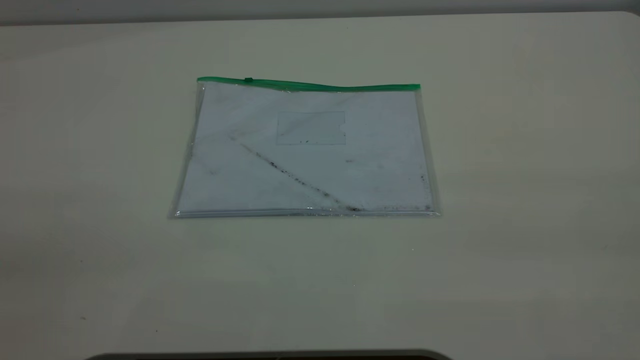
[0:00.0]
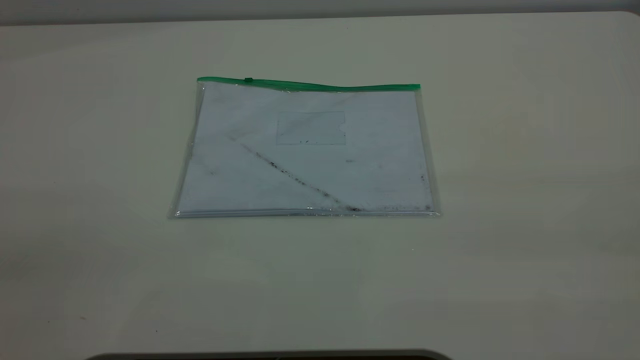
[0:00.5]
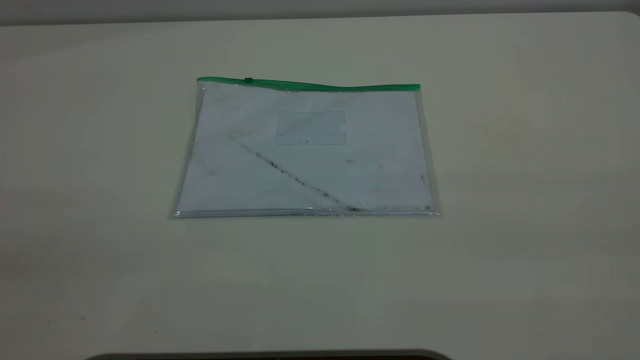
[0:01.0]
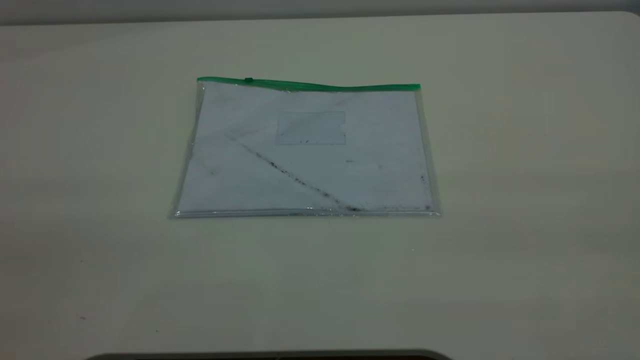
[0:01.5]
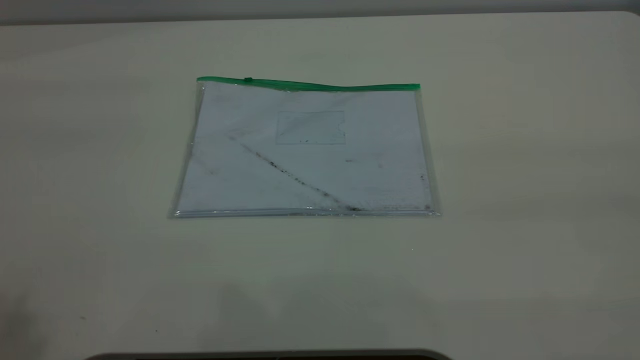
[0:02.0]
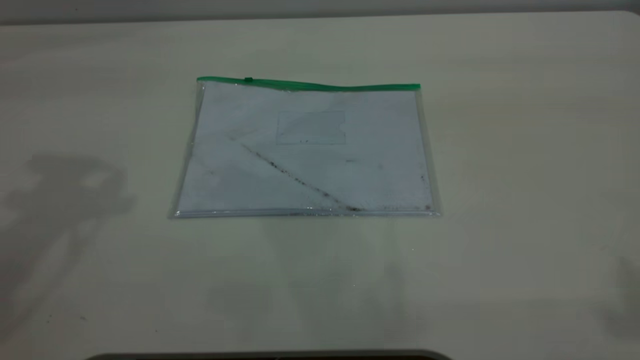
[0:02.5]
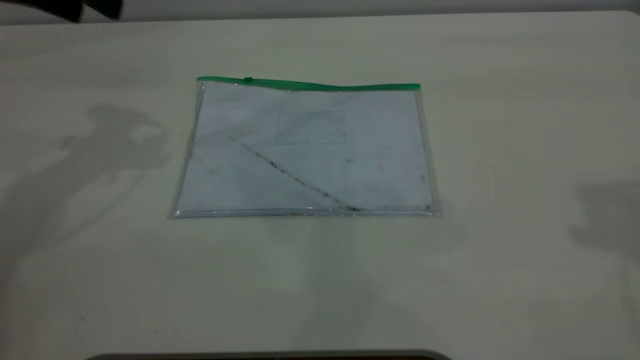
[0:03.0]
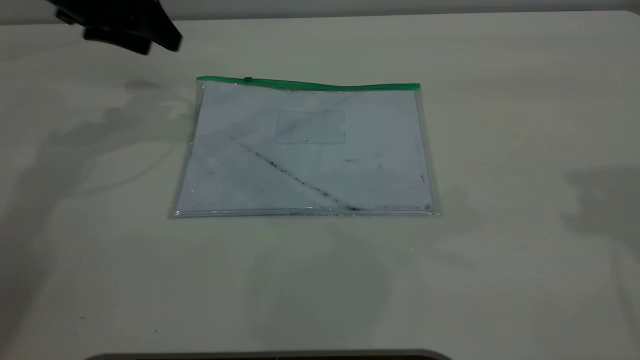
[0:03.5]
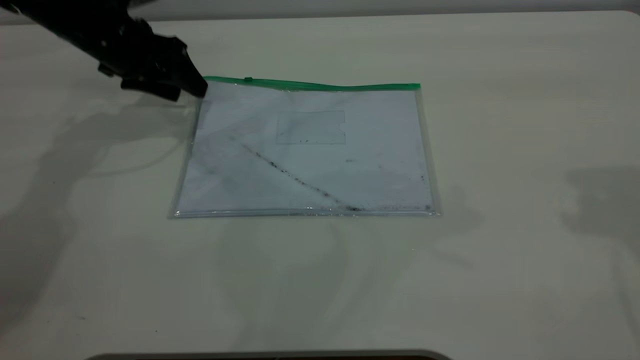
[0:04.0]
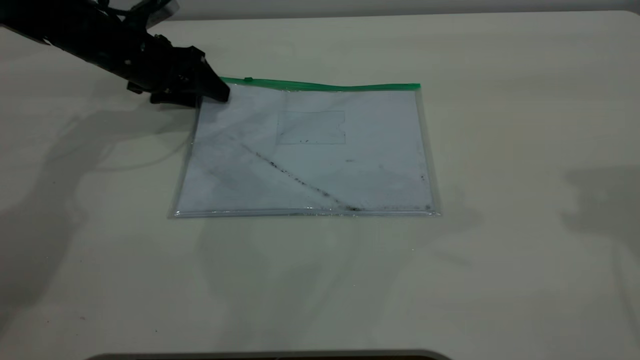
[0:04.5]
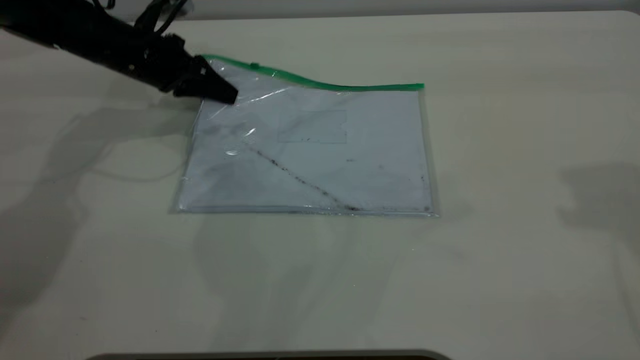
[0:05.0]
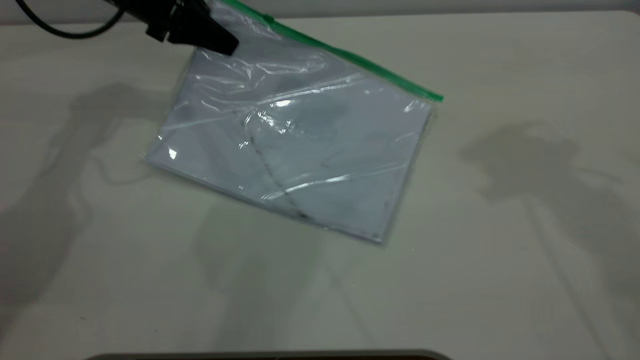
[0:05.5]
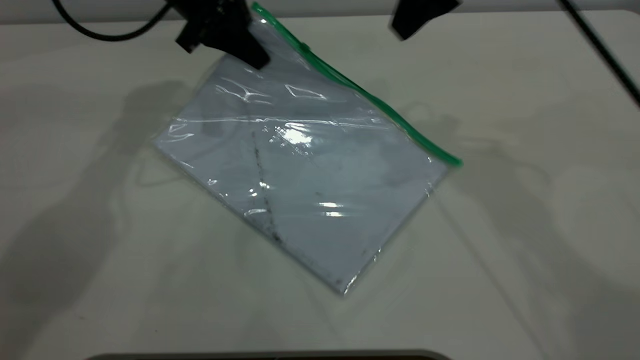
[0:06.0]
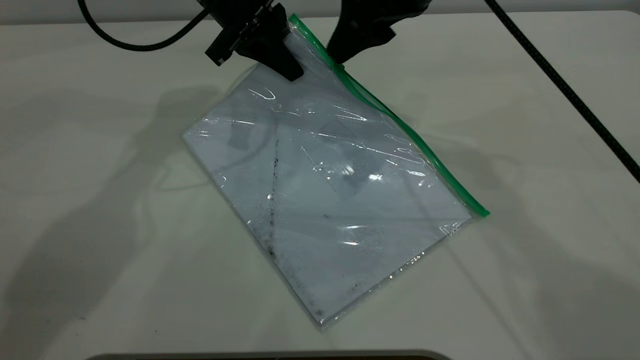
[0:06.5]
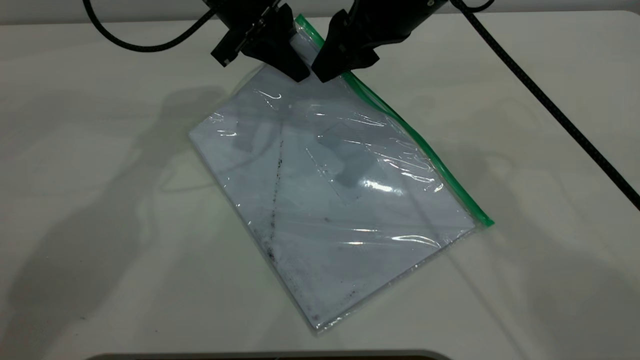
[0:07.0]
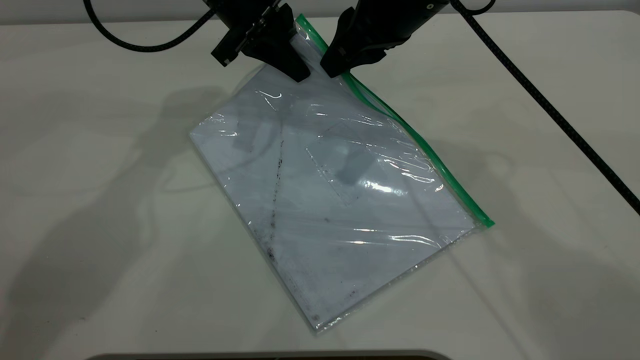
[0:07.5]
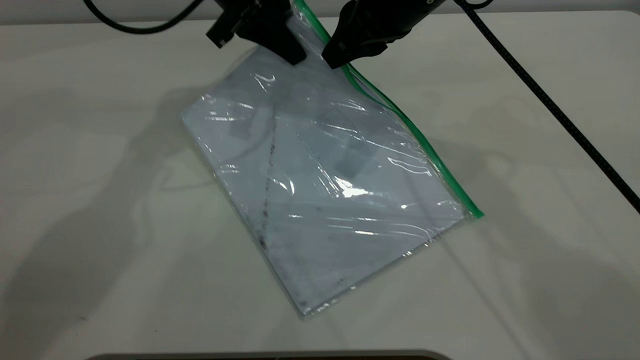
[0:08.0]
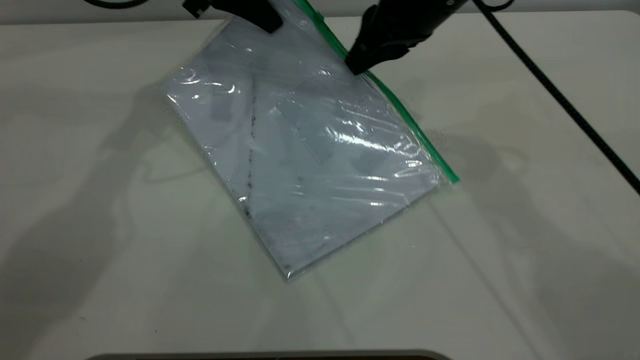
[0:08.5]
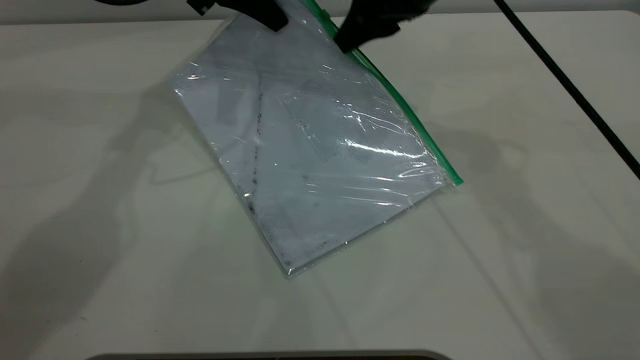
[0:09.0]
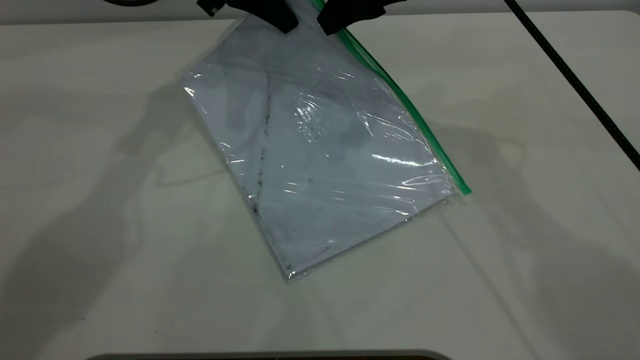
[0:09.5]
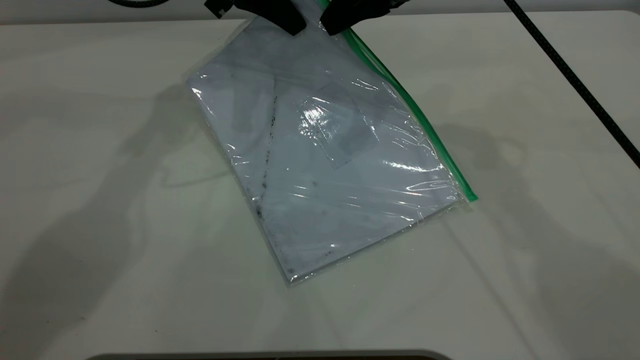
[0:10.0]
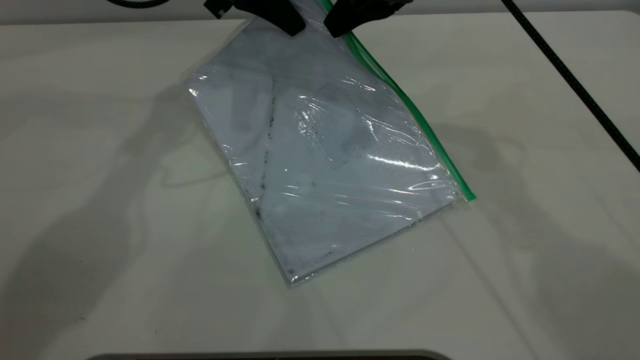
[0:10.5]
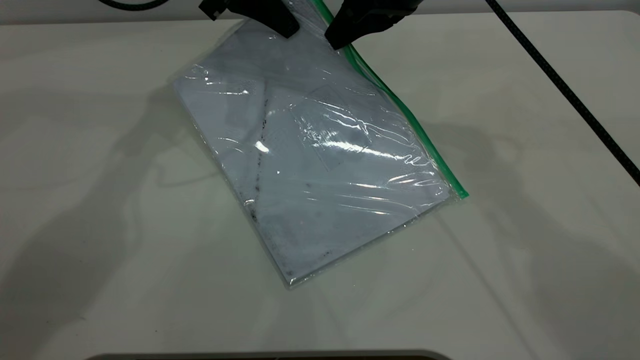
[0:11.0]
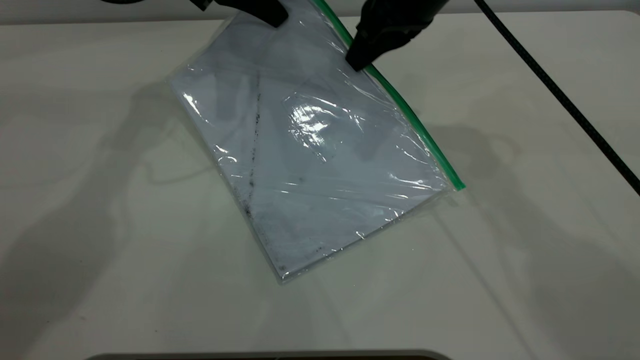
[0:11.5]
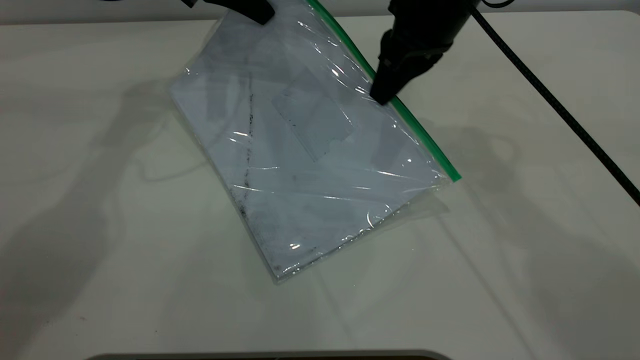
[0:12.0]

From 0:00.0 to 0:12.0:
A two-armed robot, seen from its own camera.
Step, from 0:00.0 to 0:05.0: Pick up the transparent plastic bag with the left gripper.
From 0:02.0 to 0:04.0: The left gripper goes approximately 40 cm forward and downward.
From 0:04.0 to 0:06.0: The left gripper heads to the right and upward, covering roughly 10 cm, and closes up, while the right gripper moves to the left, forward and downward, about 25 cm.
From 0:06.0 to 0:08.0: The right gripper moves downward, roughly 5 cm, and closes up.
From 0:08.0 to 0:10.0: The right gripper opens and closes again.
From 0:10.0 to 0:12.0: The left gripper moves roughly 5 cm.

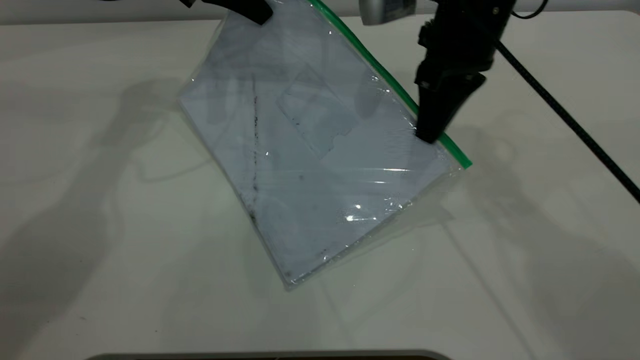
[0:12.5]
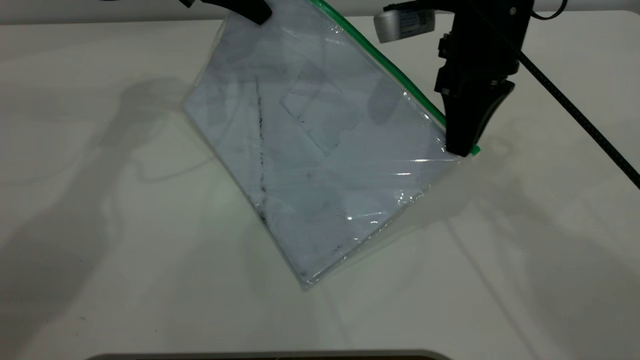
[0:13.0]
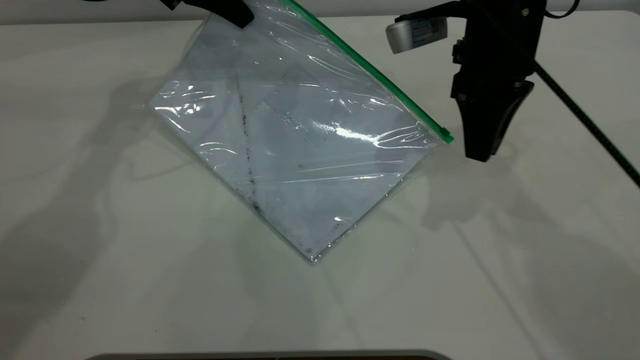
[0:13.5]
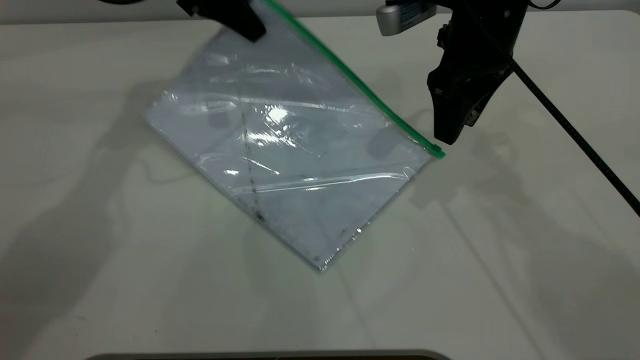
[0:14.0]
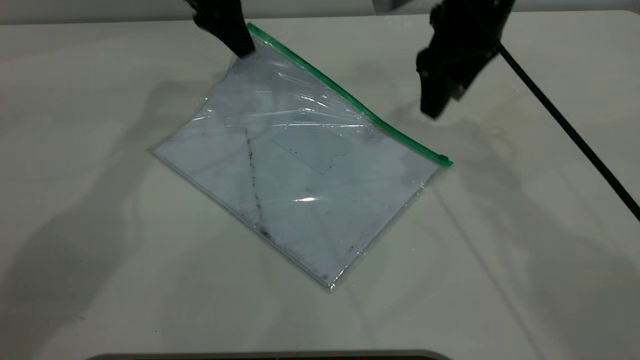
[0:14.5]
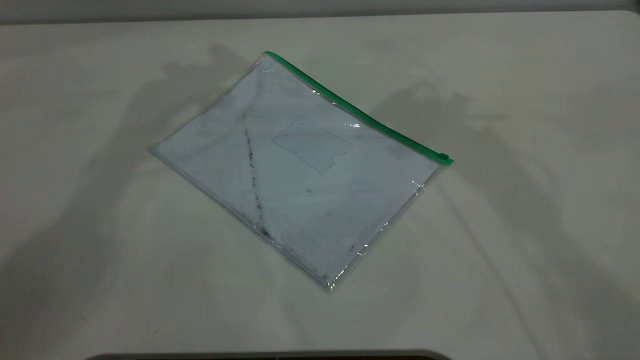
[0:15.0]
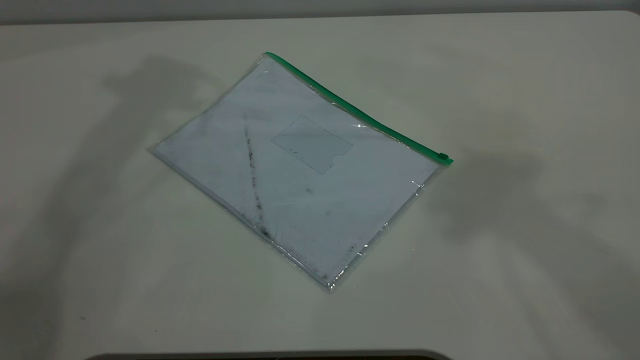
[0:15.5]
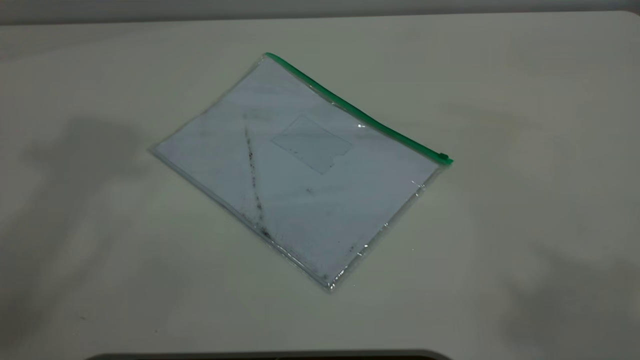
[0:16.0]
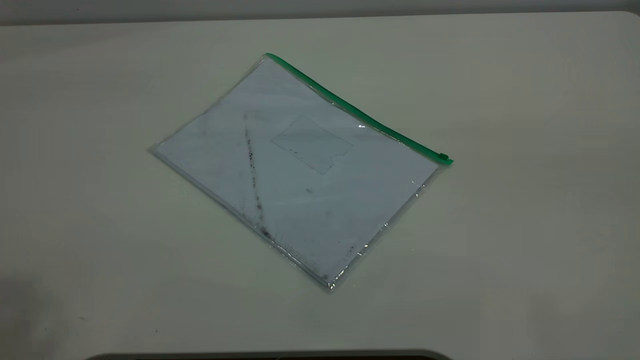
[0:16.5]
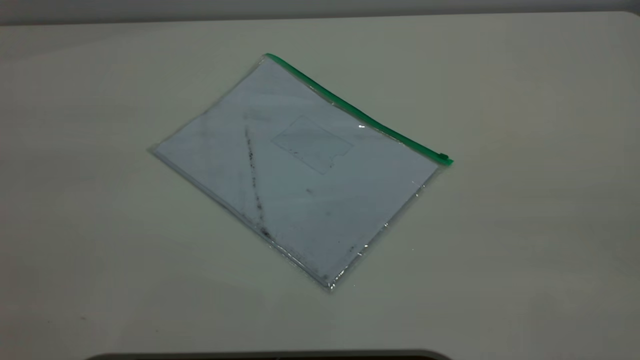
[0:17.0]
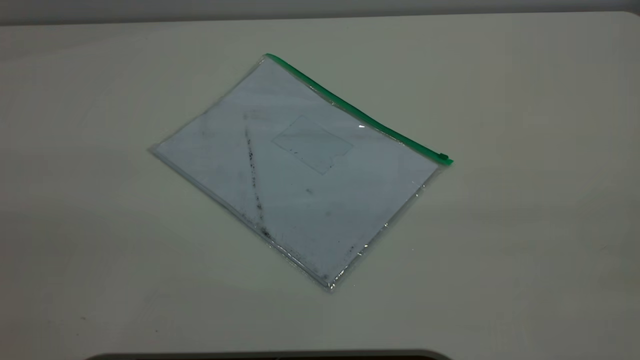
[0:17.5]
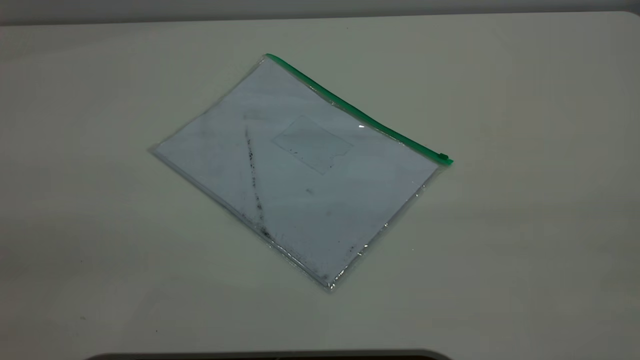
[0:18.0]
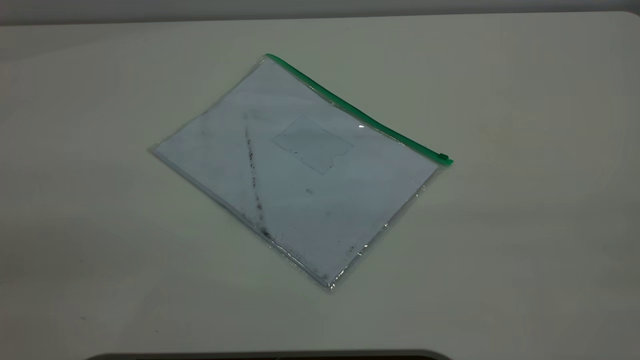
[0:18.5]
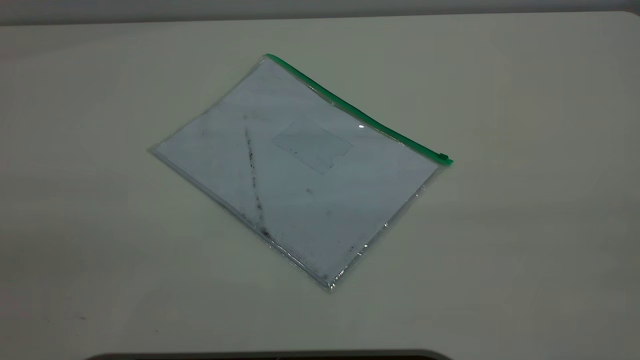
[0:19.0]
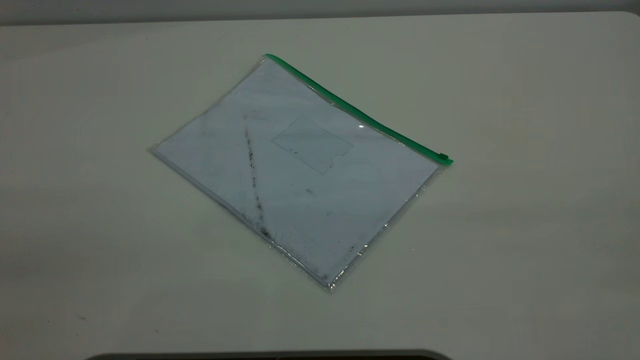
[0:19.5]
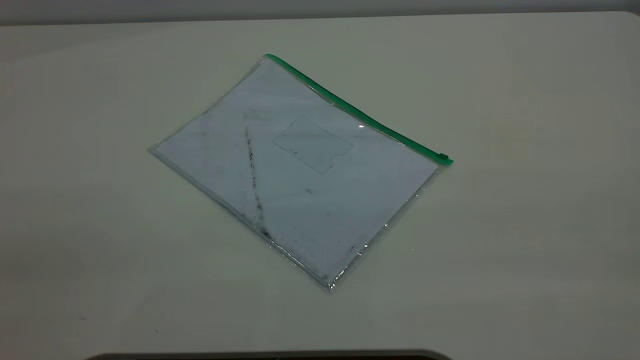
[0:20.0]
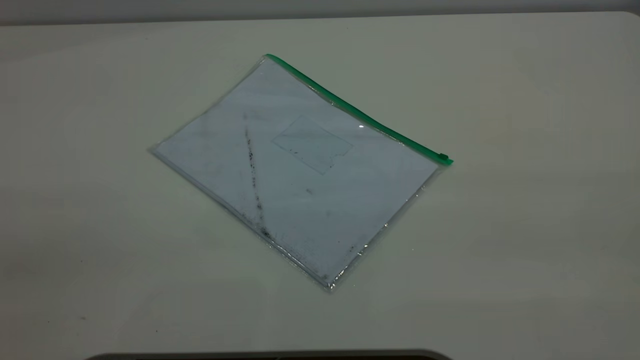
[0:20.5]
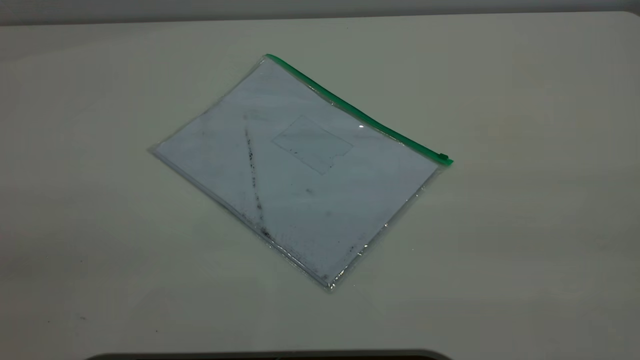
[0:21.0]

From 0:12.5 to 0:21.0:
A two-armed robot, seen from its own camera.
From 0:12.5 to 0:14.5: The right gripper opens its fingers, while the left gripper opens its fingers.
From 0:14.5 to 0:16.5: The grippers both shift backward and upward by approximately 50 cm.
